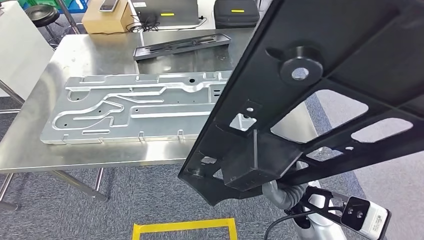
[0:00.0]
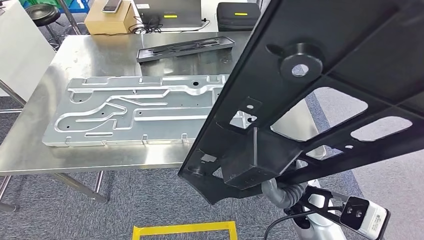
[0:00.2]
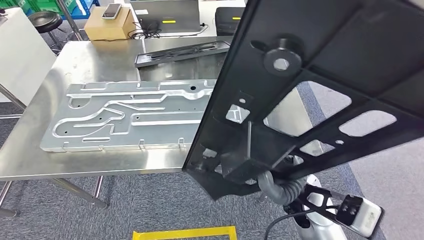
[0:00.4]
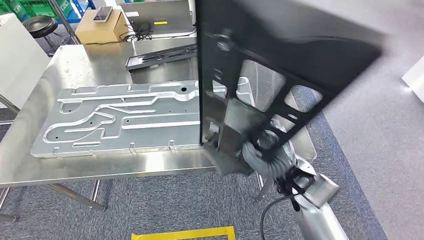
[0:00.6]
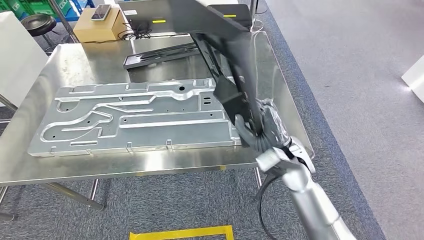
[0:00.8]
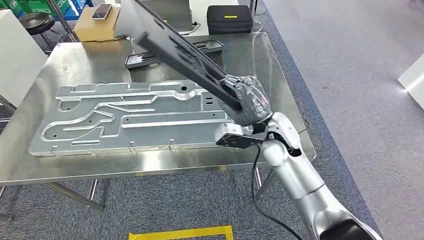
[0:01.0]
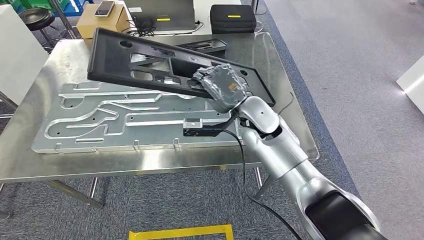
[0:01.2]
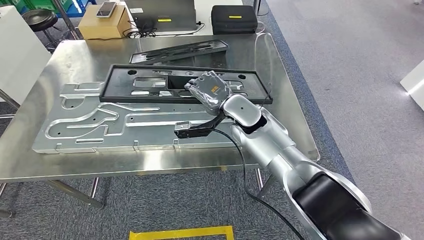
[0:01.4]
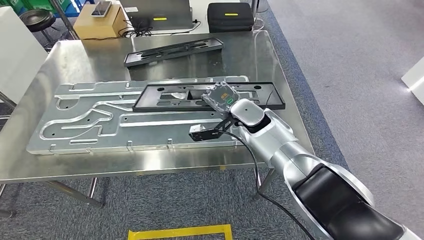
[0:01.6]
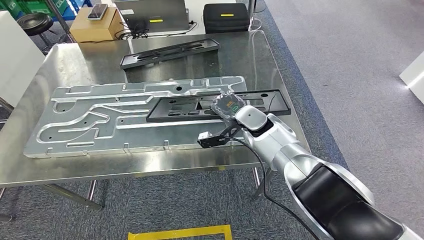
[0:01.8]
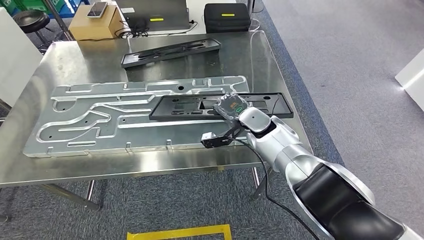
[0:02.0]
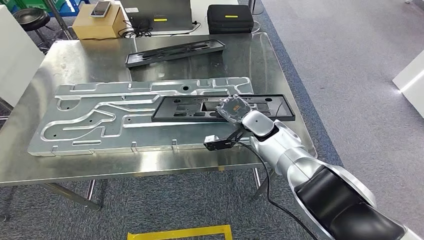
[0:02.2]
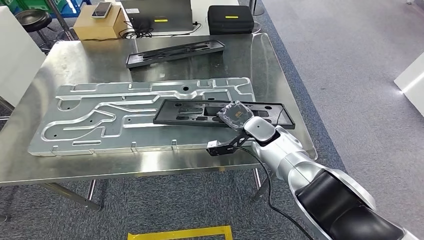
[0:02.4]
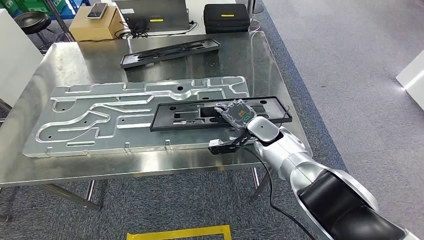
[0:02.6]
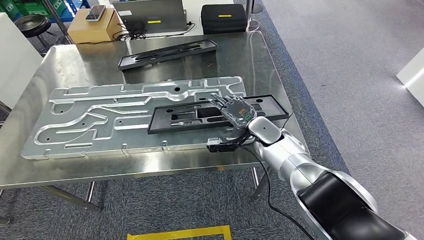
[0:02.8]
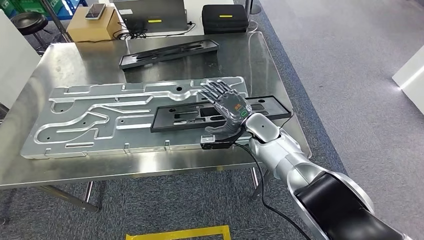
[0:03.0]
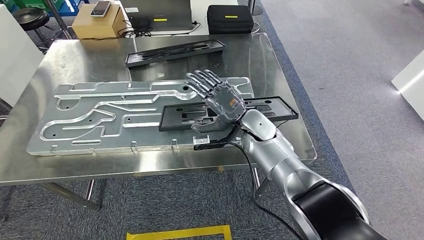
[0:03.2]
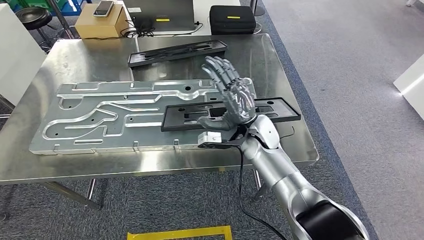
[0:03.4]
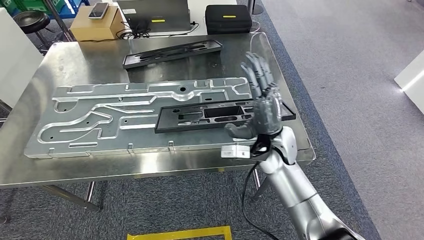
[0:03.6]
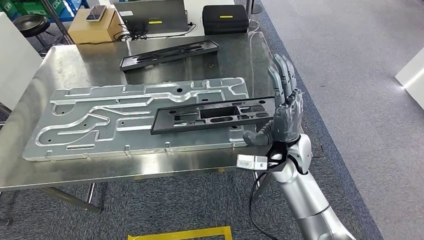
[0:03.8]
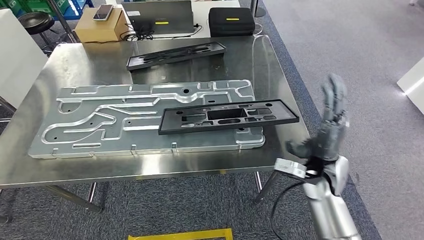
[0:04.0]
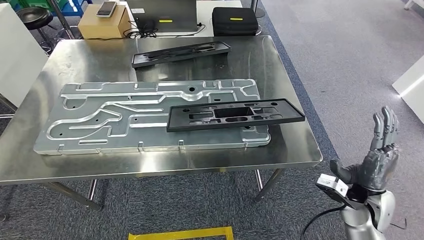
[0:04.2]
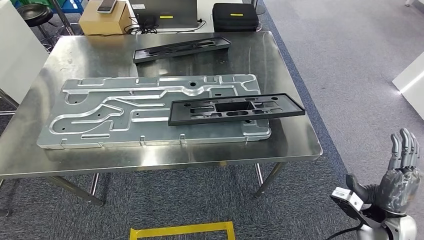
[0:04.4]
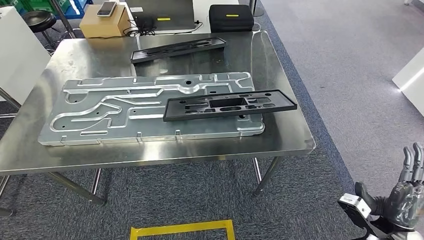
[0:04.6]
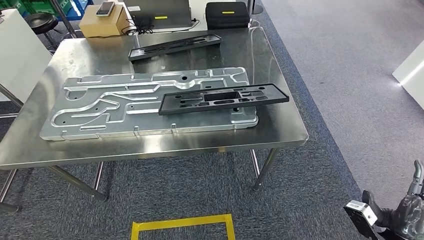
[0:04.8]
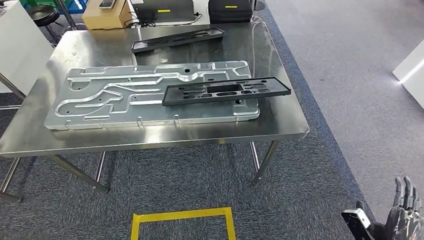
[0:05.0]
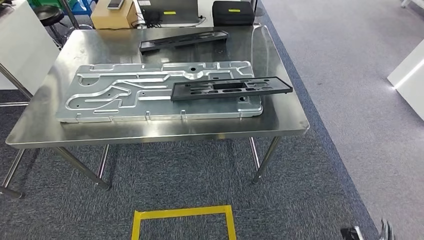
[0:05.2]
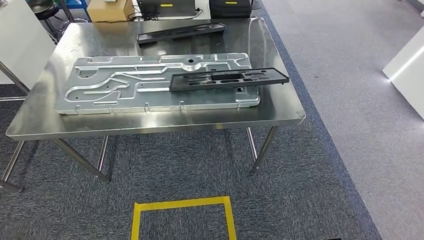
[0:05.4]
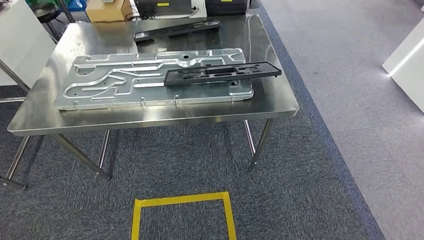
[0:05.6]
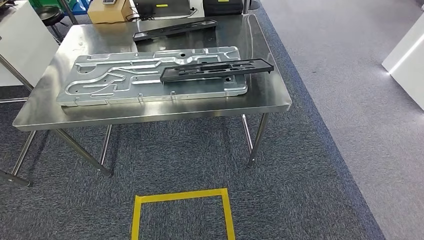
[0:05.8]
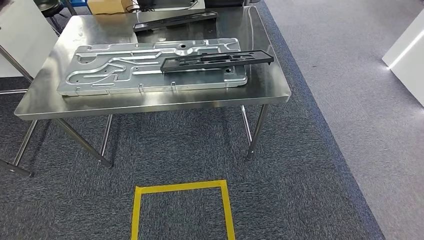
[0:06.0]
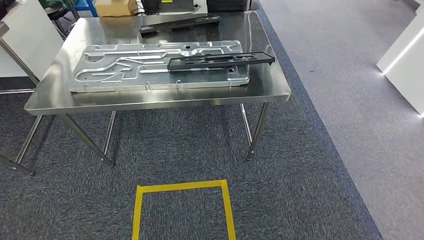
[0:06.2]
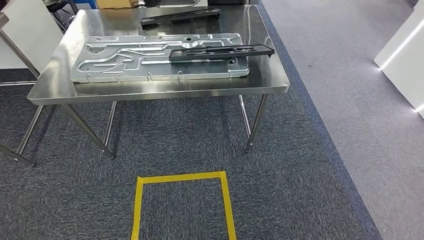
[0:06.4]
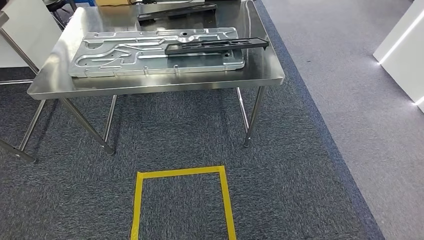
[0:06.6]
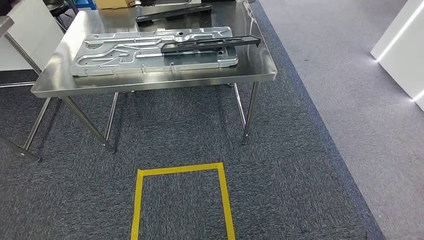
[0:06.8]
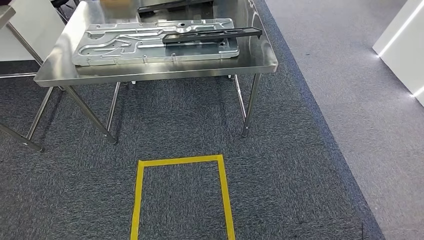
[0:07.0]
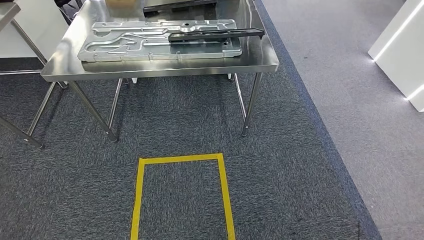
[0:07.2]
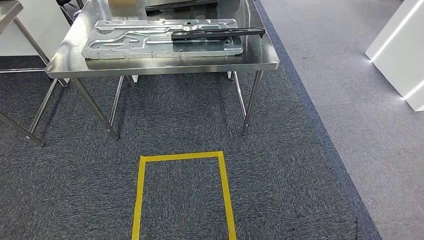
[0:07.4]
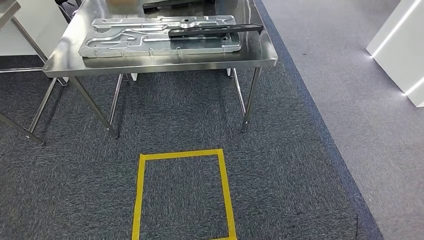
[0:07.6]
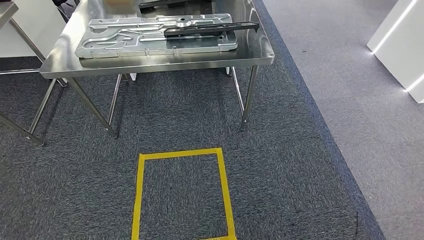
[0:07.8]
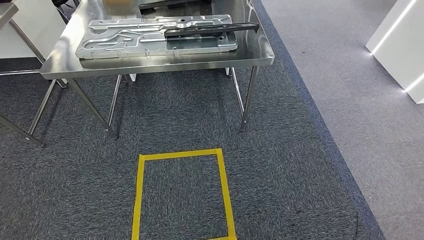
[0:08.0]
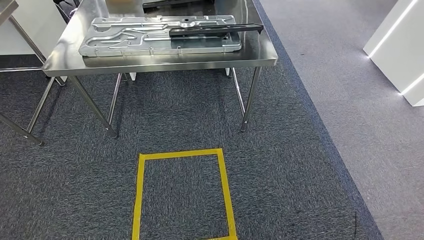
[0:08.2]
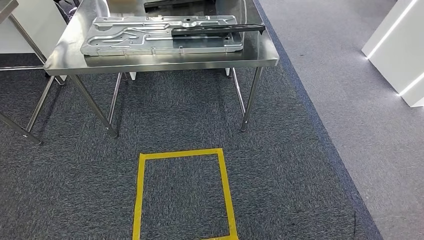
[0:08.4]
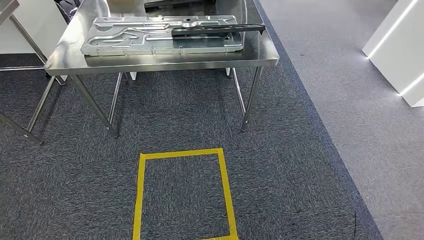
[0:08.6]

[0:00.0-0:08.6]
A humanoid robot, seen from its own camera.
Step, 0:00.0 to 0:03.2: Insert the large material into the corresponding hole on the workbench.
Step, 0:03.6 to 0:08.4: Move to the initial position of the shelf.
0:07.2 to 0:08.6: Neither hand changes place.
